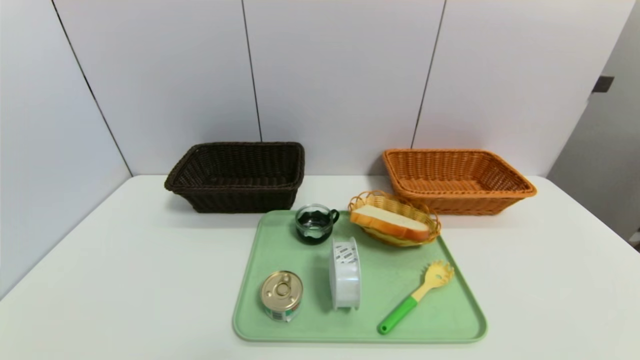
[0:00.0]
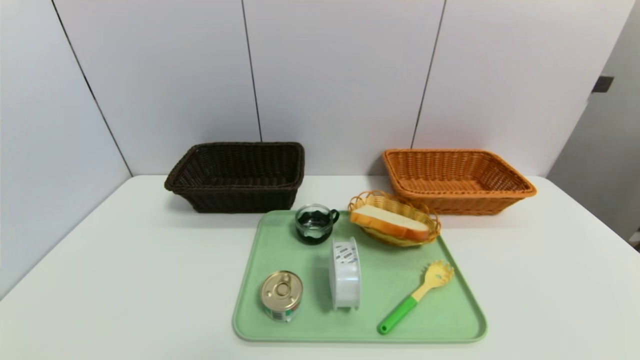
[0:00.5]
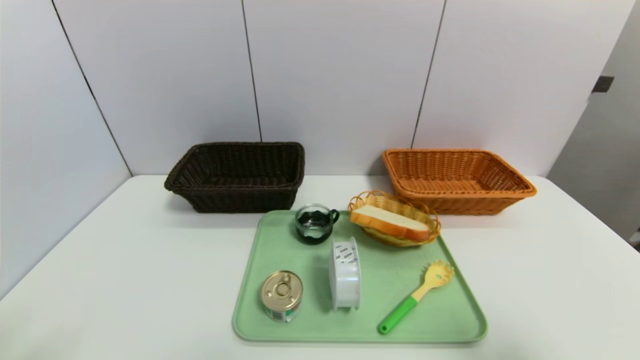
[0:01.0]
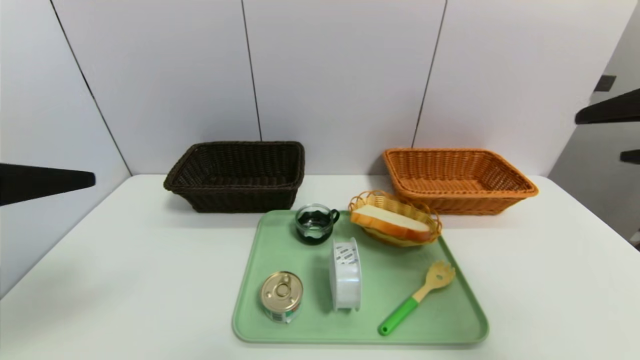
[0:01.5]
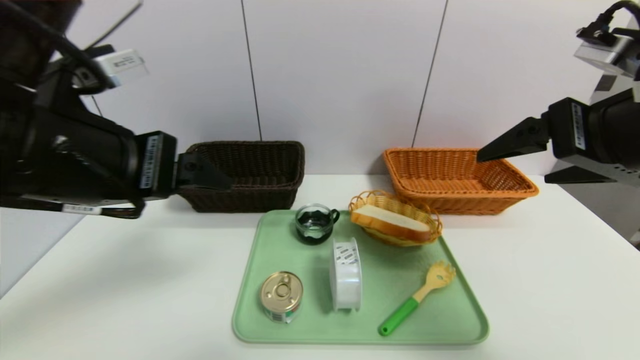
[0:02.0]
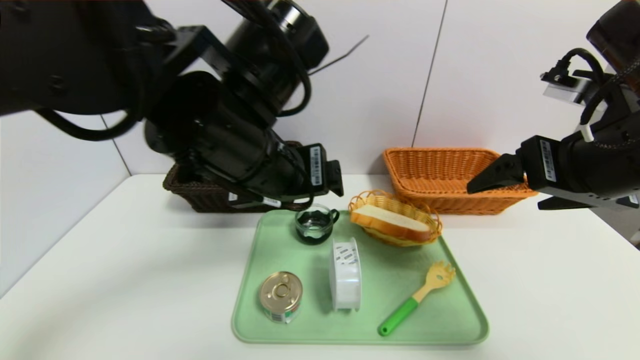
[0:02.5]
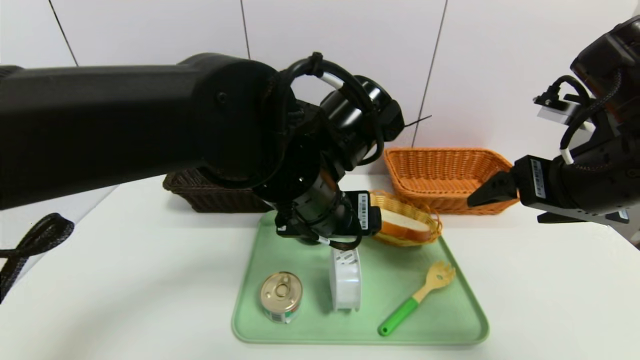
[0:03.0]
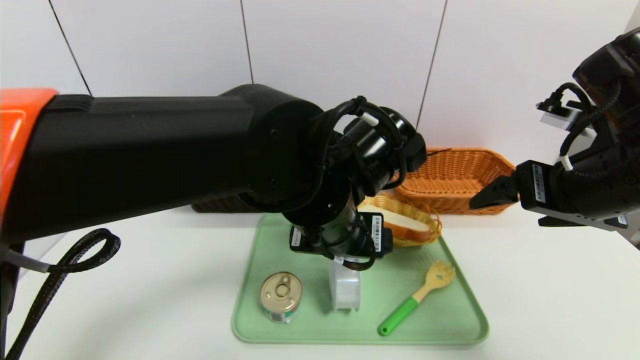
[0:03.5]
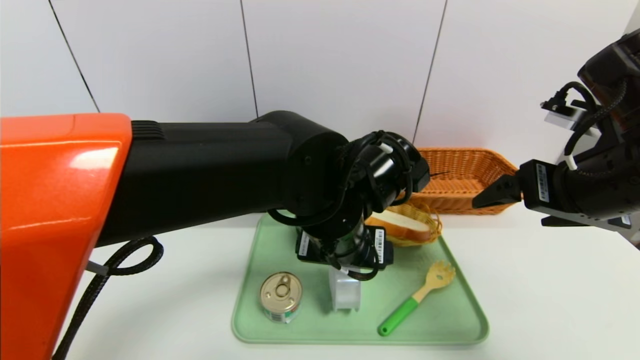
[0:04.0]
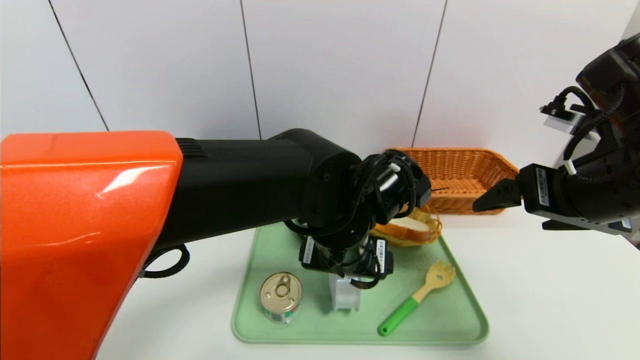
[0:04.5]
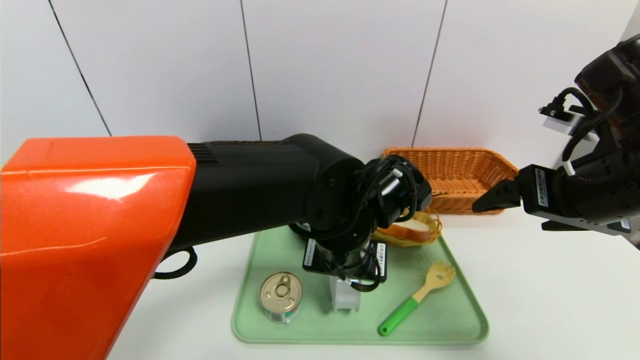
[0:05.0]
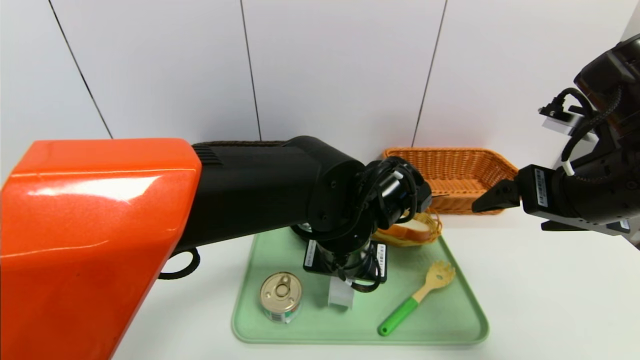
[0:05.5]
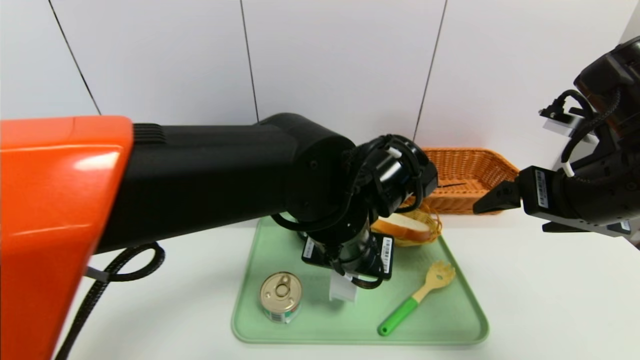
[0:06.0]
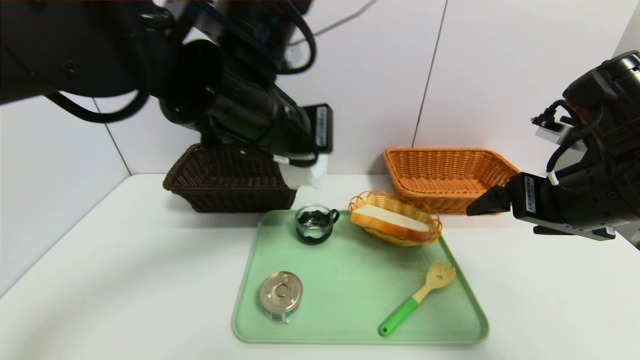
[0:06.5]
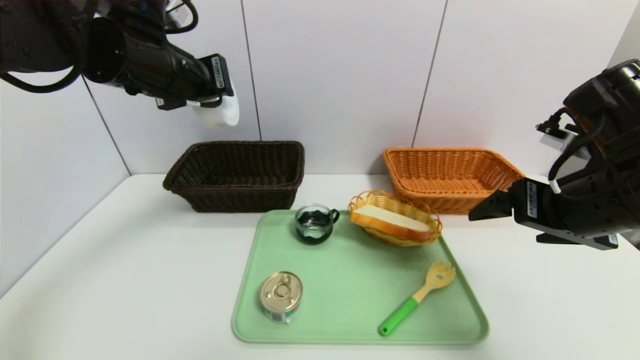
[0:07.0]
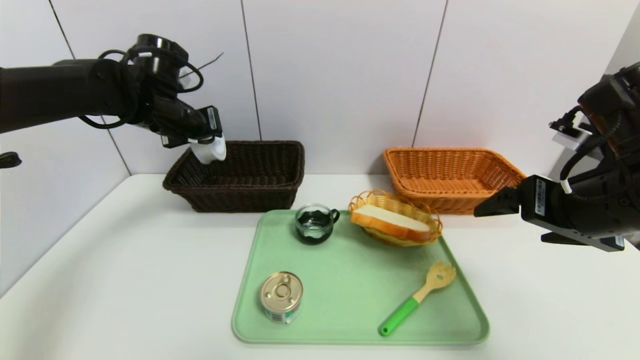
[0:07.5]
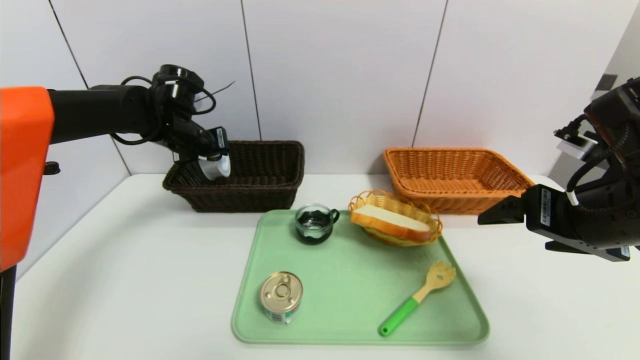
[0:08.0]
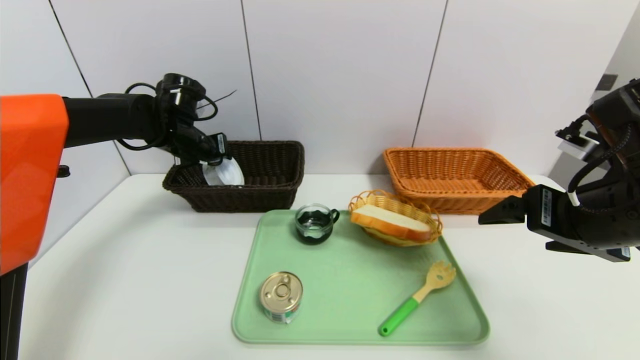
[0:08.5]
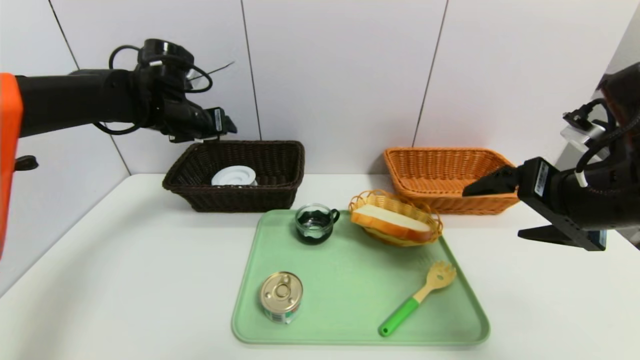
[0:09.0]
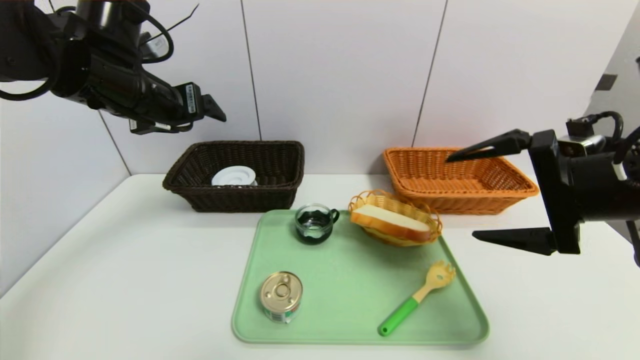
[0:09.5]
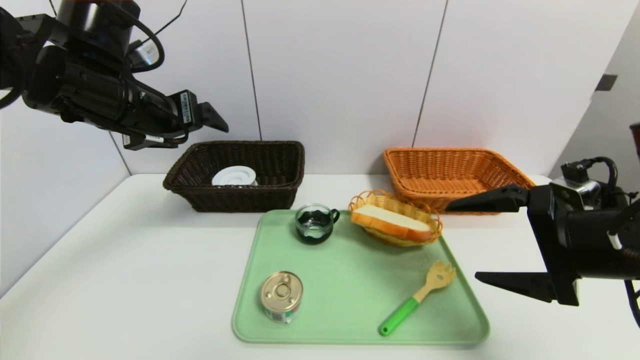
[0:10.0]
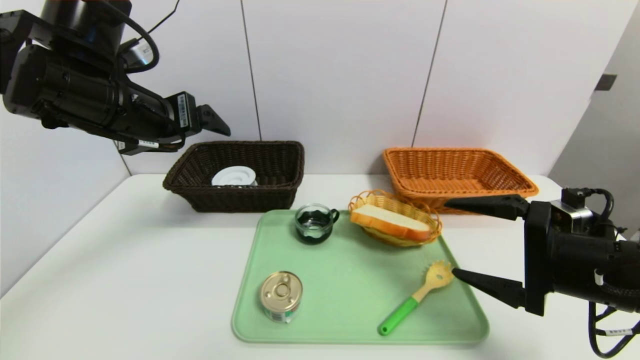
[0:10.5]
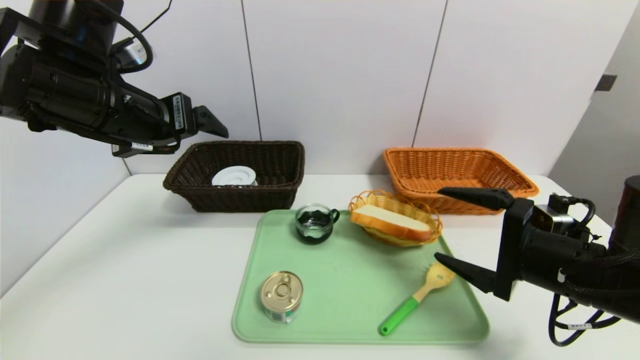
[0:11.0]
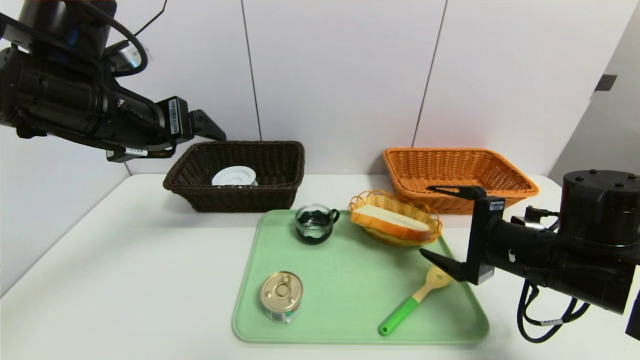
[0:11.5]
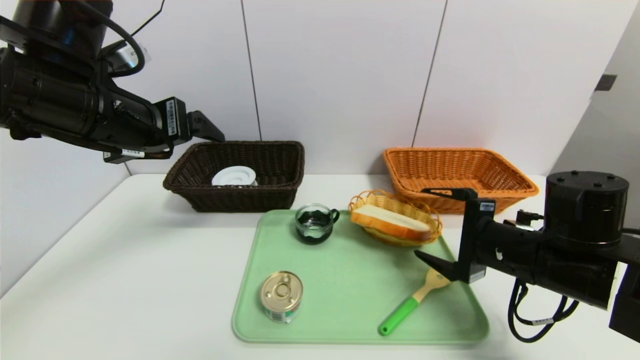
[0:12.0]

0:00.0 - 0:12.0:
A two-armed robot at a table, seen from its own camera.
Task of the whole recording: place the food in the right basket with the right gripper, and place the non food items in the left basket with the left gripper.
Step, 0:00.0 - 0:08.5: Grasp the tape and put it in the left basket.
0:00.0 - 0:02.0: The left gripper shifts approximately 35 cm upward, forward and to the right; the right gripper heads upward and forward, covering about 35 cm.
0:02.0 - 0:04.0: The right gripper goes some 5 cm downward, while the left gripper travels to the right and downward by some 25 cm.
0:04.0 - 0:06.0: The left gripper closes.
0:06.0 - 0:08.0: The left gripper is displaced to the left and forward by approximately 35 cm.
0:08.0 - 0:10.0: The left gripper shifts approximately 15 cm backward and upward, and opens its fingers.
0:10.0 - 0:12.0: The right gripper heads downward and forward, covering approximately 10 cm.

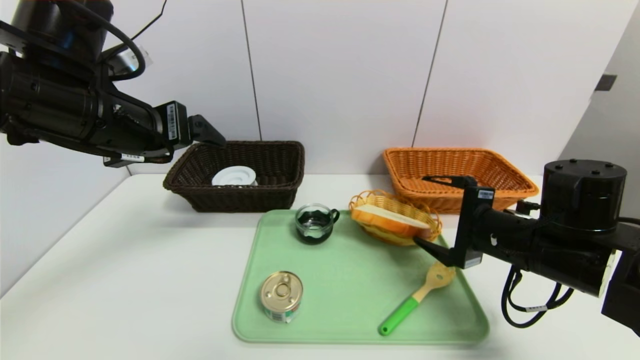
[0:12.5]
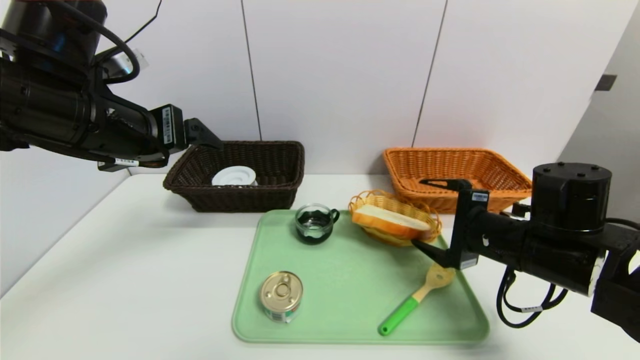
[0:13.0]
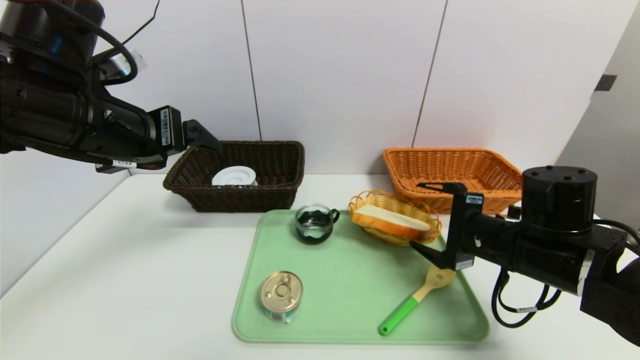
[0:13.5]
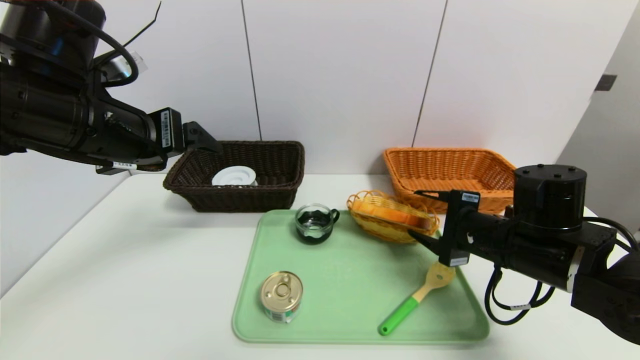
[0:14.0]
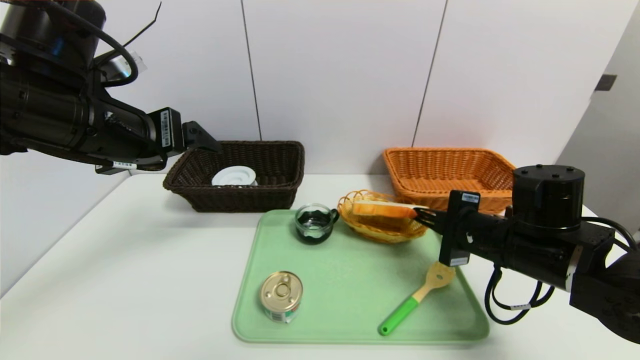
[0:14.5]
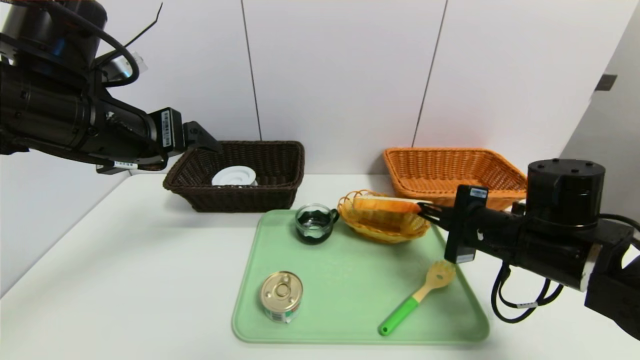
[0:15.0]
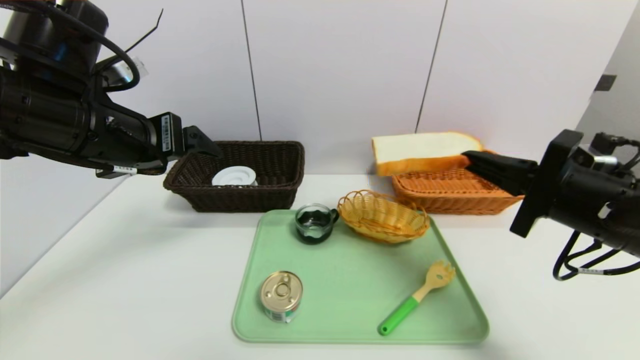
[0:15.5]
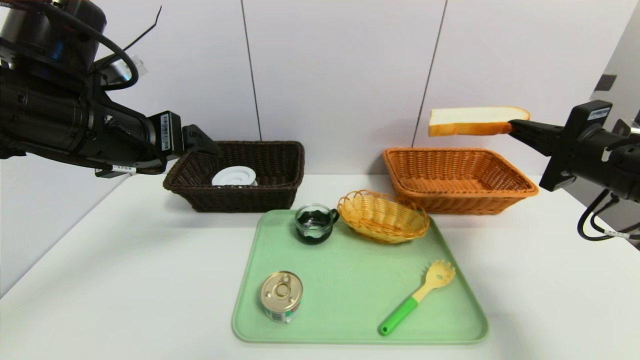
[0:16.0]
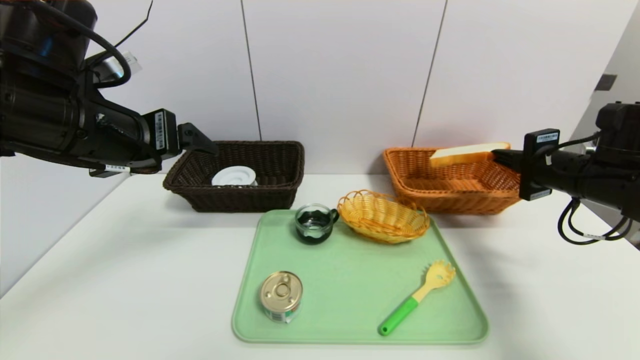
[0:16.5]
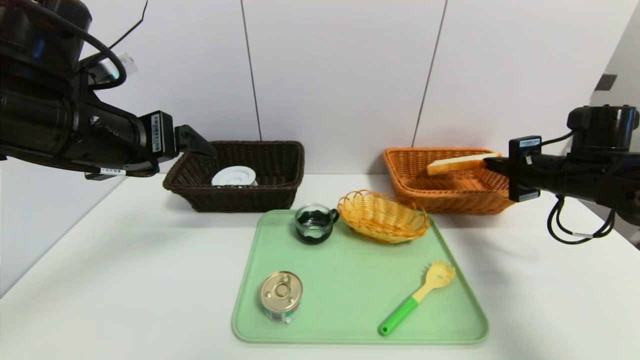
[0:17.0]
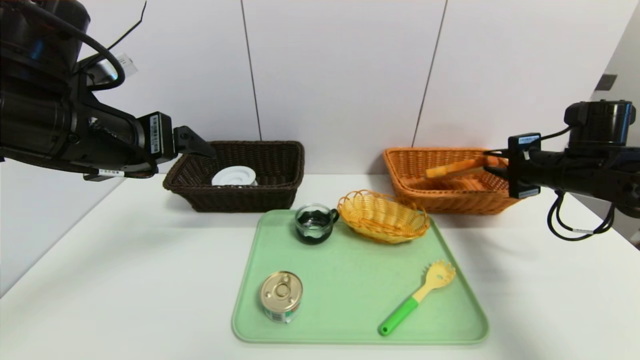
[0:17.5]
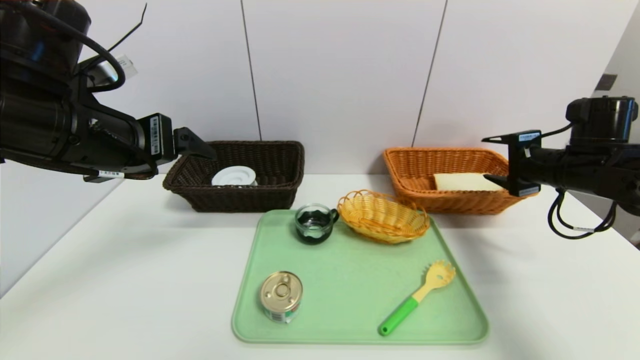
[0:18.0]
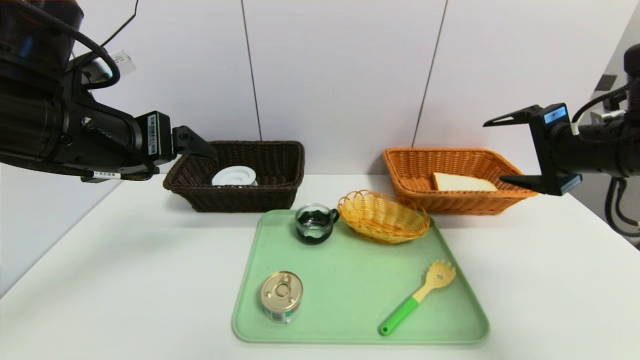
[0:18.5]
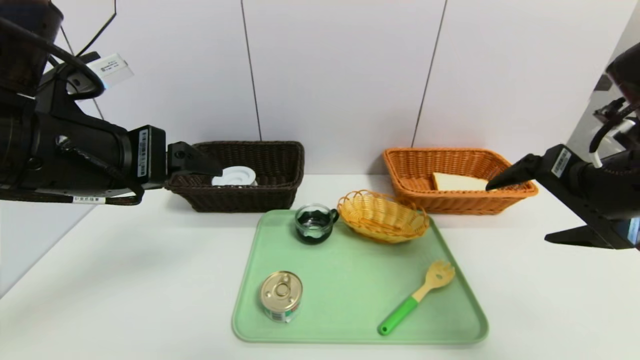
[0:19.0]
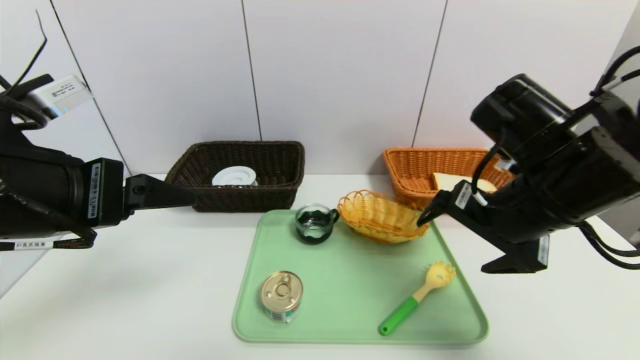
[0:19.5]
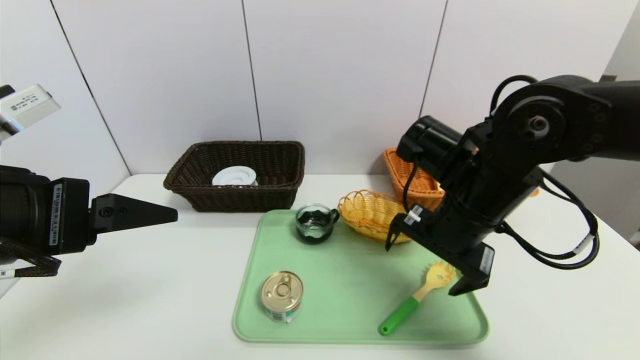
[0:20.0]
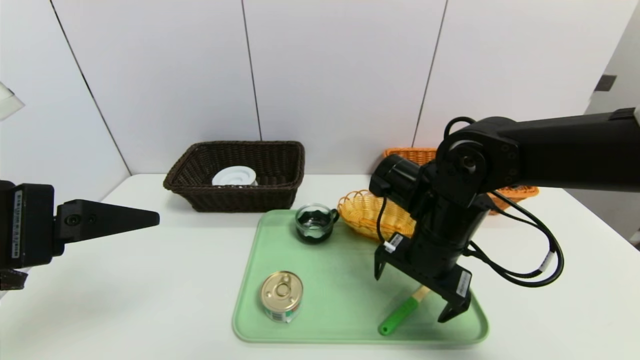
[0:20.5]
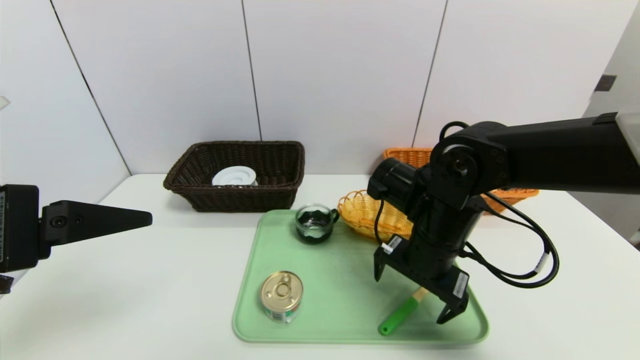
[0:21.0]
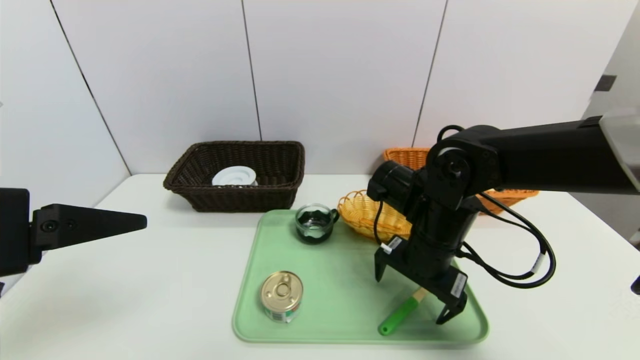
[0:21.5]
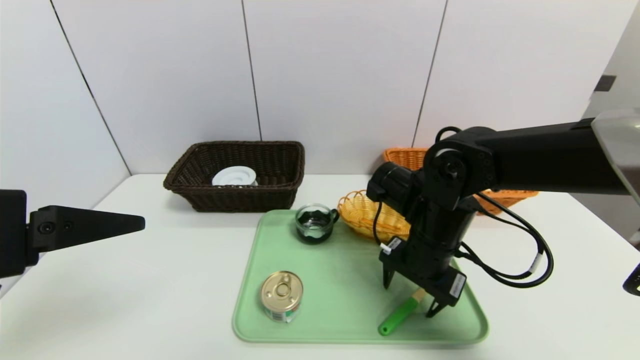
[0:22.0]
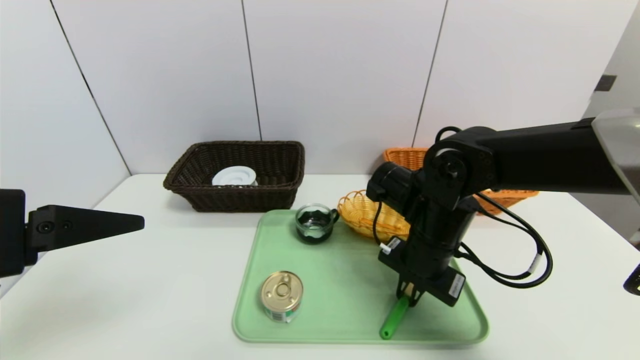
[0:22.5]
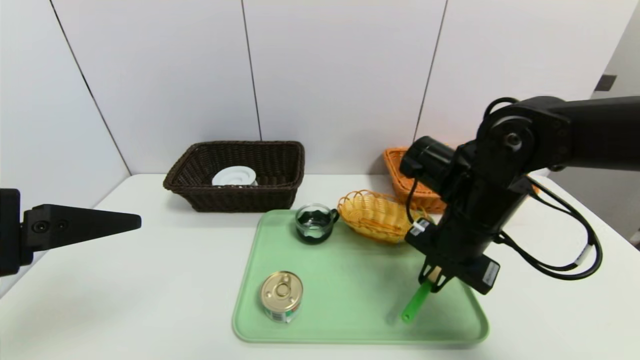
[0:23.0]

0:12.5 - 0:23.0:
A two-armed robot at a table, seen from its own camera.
Task of the whole recording: place the food in the right basket with the right gripper, and place the non food items in the left basket with the left gripper.
Step, 0:12.5 - 0:18.0: Grasp the bread slice and put it in the right basket.
0:12.5 - 0:14.5: The right gripper closes up.
0:14.5 - 0:16.5: The right gripper travels to the right, forward and upward by some 15 cm.
0:16.5 - 0:19.0: The right gripper is displaced backward, upward and to the left by approximately 15 cm, and opens up, while the left gripper moves about 5 cm.
0:19.0 - 0:21.0: The left gripper moves backward, some 10 cm, while the right gripper heads to the left, downward and forward, covering roughly 20 cm.
0:21.0 - 0:23.0: The right gripper closes.
